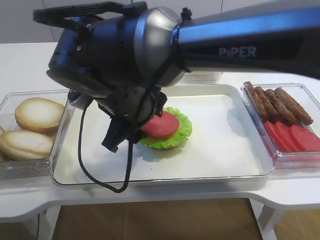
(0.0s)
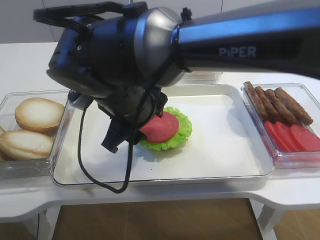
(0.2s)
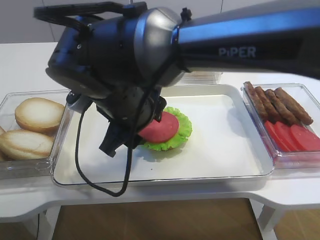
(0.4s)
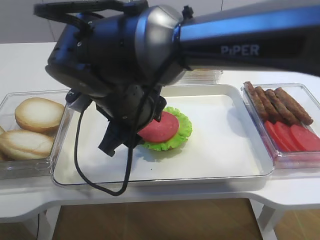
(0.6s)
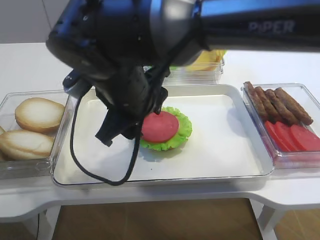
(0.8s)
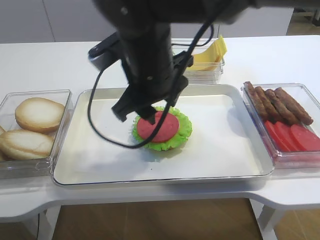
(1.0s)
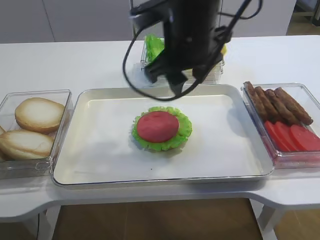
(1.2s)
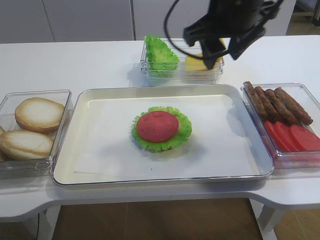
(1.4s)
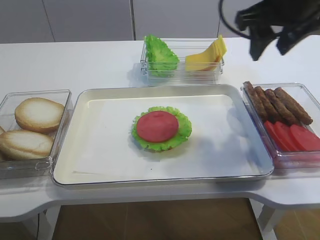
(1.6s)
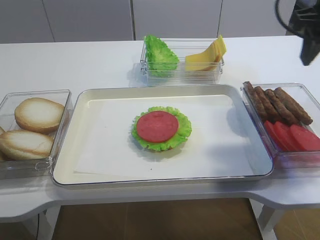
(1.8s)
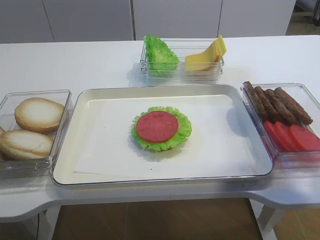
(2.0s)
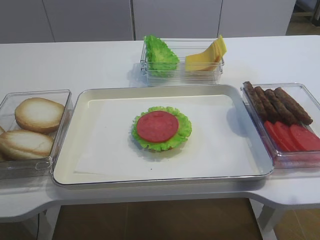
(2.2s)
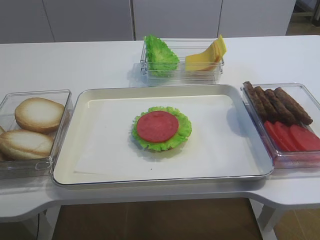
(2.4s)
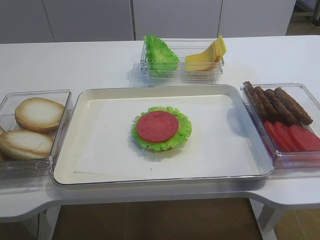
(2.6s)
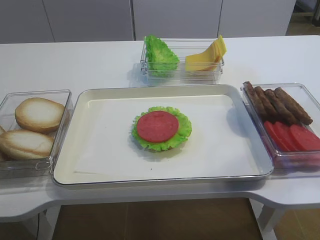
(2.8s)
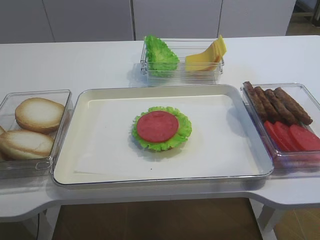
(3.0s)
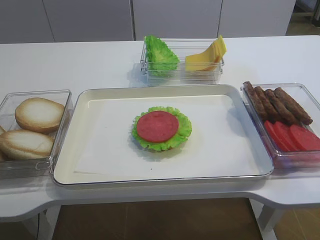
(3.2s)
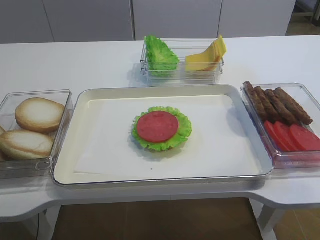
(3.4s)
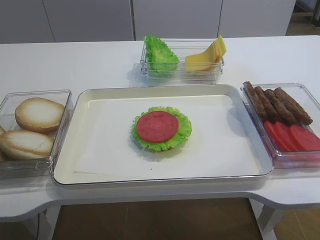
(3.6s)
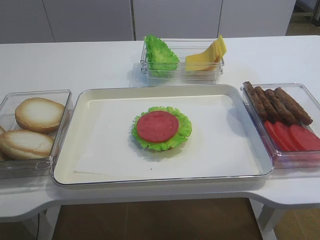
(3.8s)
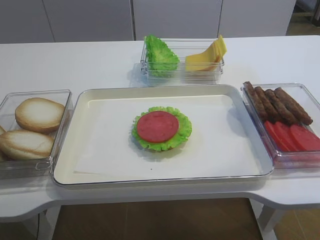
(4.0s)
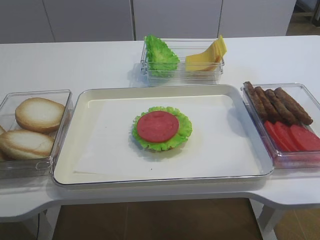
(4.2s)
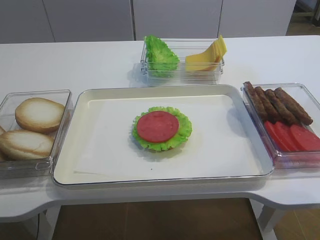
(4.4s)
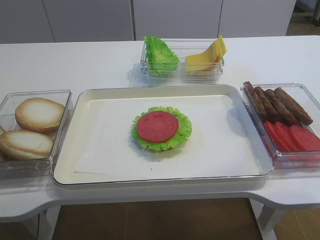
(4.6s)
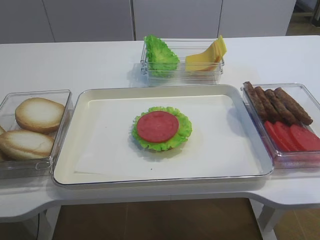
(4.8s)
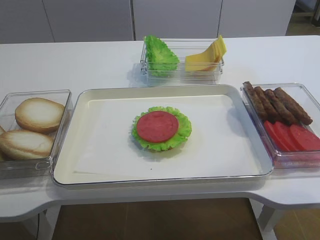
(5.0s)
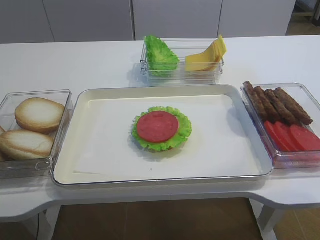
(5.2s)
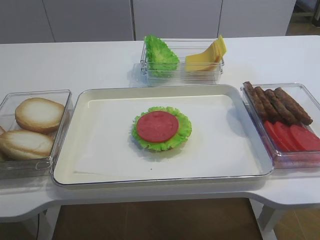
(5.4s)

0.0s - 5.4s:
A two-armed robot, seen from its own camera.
0.0s - 1.4s: The right gripper travels to the right, upward and forward by approximately 20 cm.
1.4s - 2.8s: The right gripper travels backward and to the right by roughly 30 cm.
2.8s - 4.0s: The right gripper heads downward and backward, covering about 15 cm.

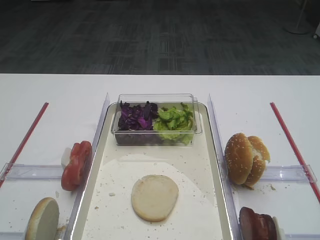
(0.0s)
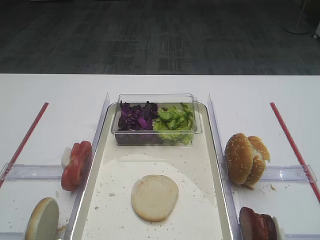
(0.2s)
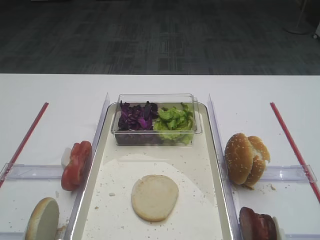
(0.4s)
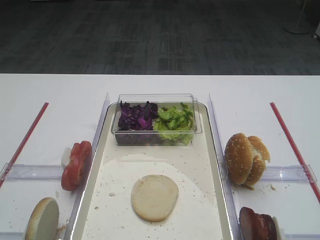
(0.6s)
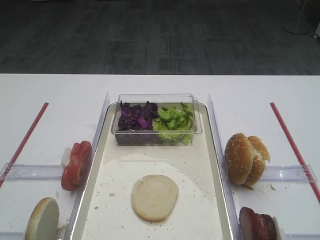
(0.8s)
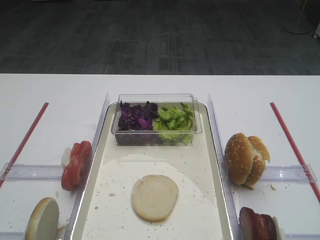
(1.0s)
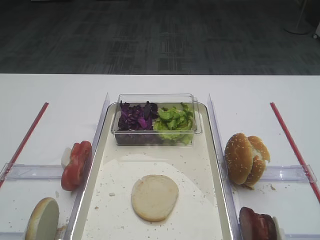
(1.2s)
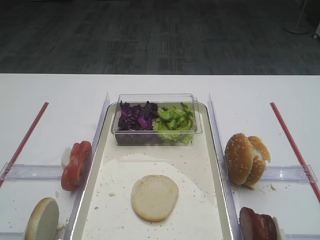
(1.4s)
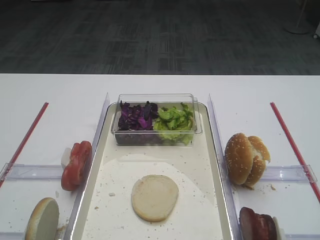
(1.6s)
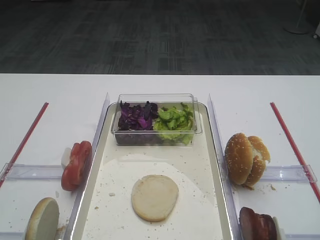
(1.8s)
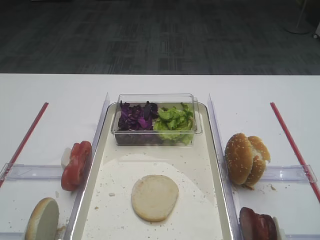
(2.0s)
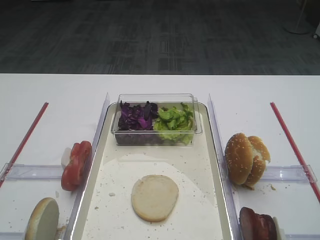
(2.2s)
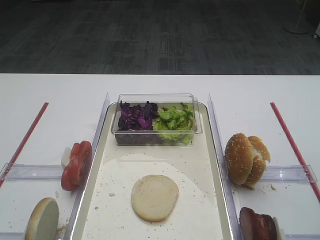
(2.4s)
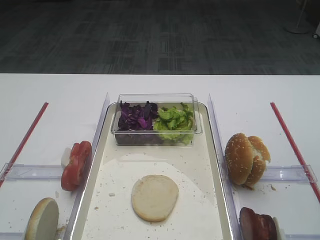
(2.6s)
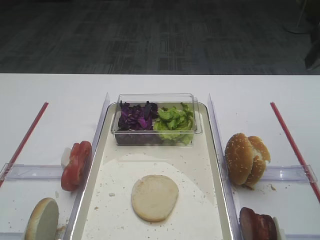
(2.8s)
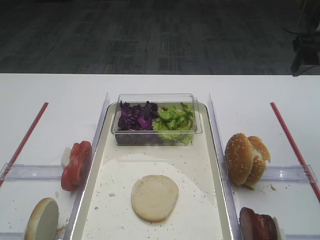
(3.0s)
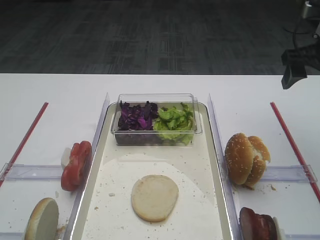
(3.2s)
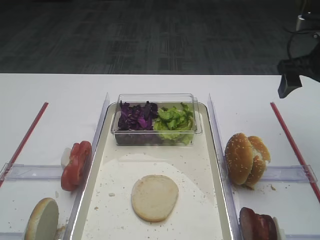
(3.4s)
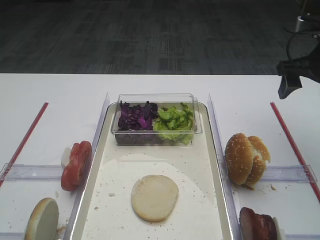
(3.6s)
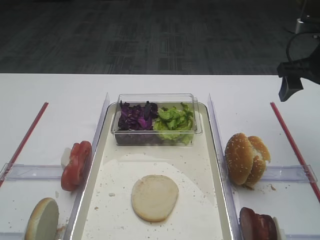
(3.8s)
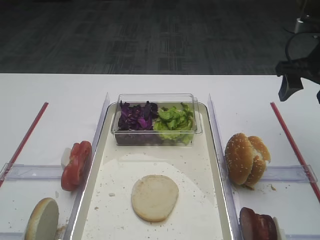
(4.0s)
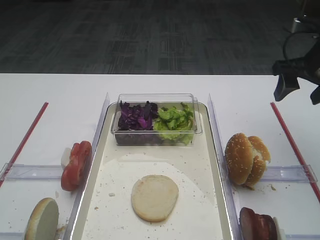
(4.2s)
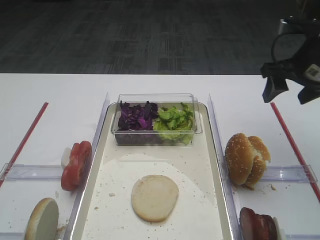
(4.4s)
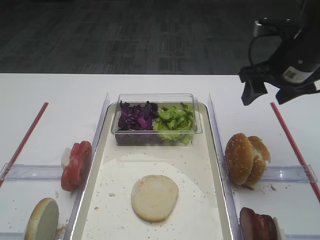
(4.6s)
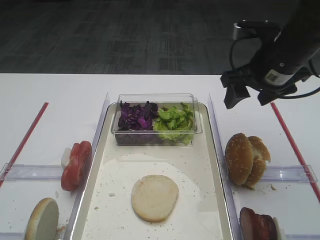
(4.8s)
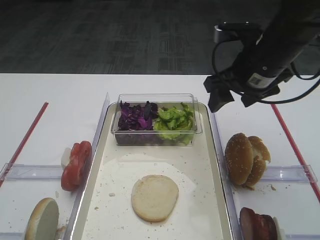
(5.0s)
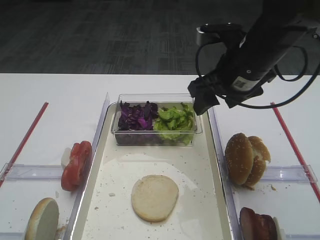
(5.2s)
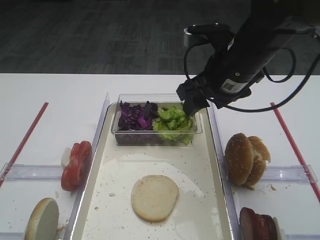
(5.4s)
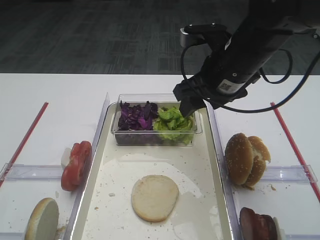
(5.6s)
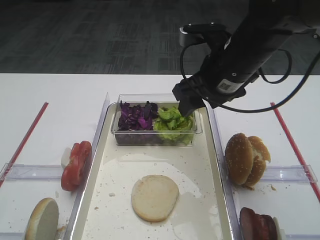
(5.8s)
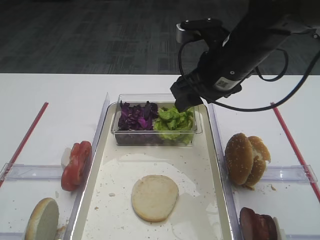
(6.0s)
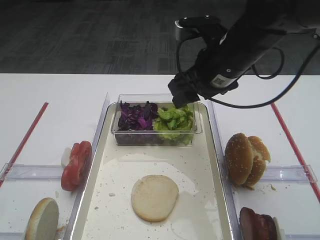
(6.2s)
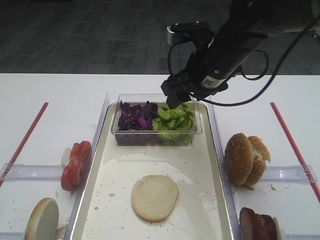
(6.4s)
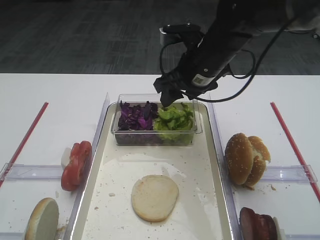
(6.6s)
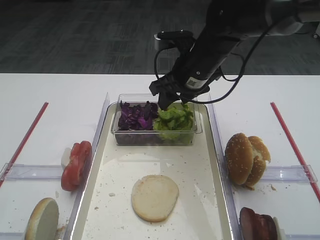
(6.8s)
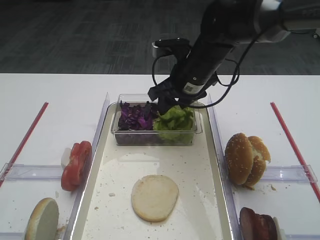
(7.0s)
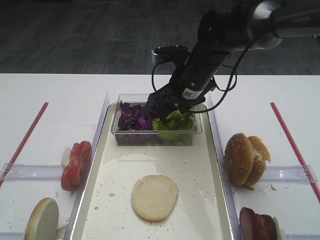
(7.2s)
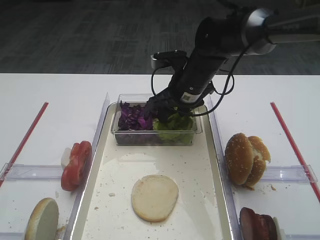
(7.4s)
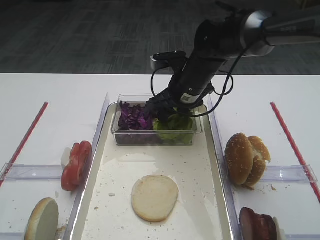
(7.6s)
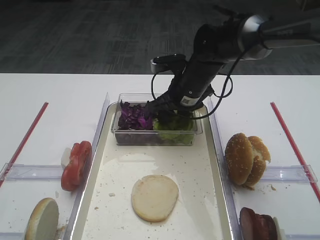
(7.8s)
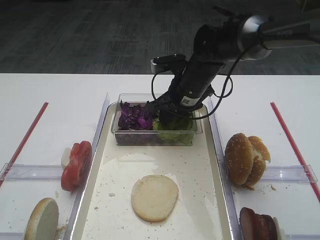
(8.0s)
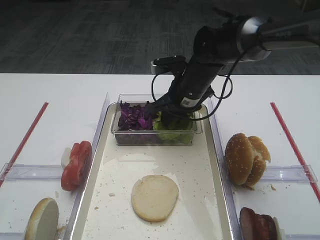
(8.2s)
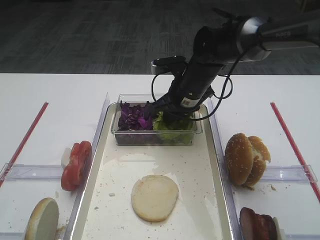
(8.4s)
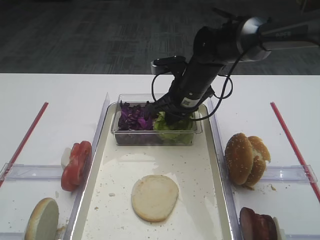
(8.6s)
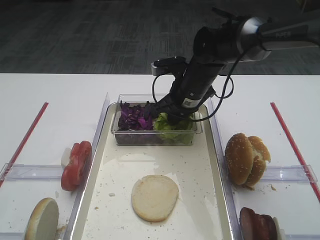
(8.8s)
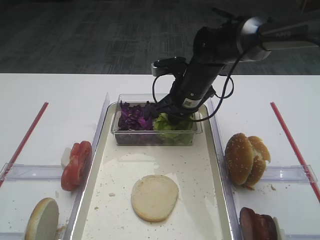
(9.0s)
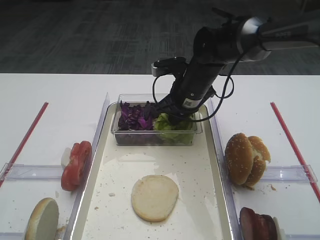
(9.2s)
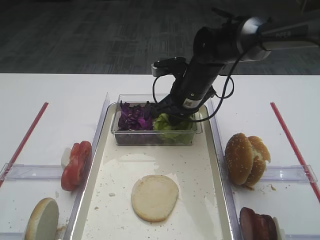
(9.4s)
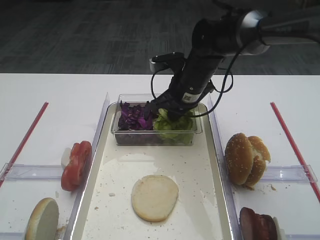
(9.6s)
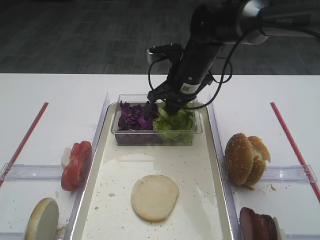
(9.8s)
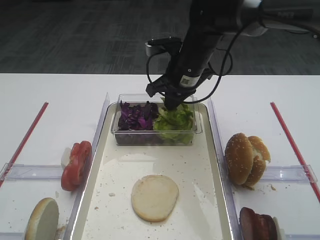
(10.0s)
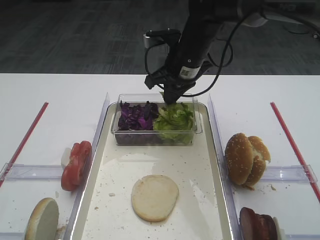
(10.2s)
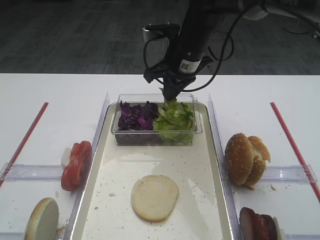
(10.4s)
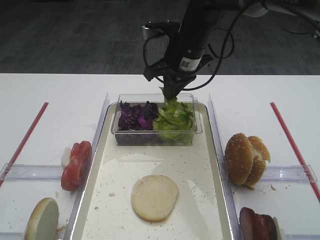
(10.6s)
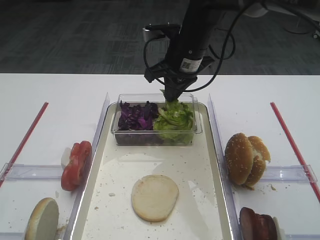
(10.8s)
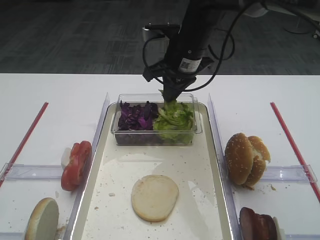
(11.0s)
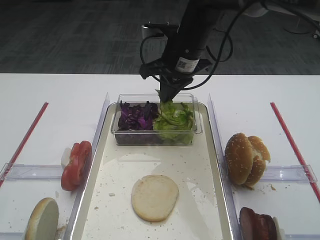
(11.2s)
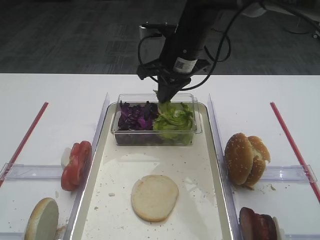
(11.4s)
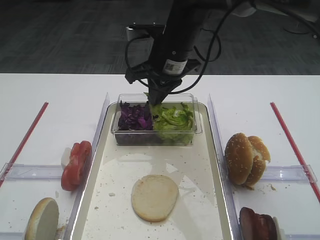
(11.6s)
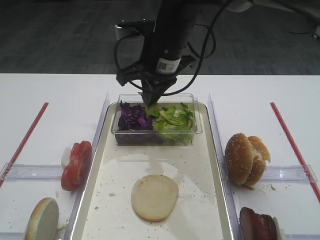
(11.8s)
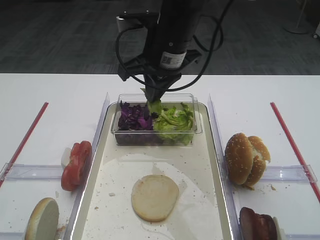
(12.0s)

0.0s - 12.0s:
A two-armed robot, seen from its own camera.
Step, 0.0s - 11.0s: Pick up the lettuce leaf with the right gripper.
1.6s - 3.0s: The right gripper goes approximately 30 cm forward.
3.0s - 4.4s: The right gripper goes roughly 5 cm downward.
4.4s - 6.0s: The right gripper travels to the left by approximately 15 cm.
6.0s - 7.6s: The right gripper heads forward and downward, covering approximately 10 cm.
7.6s - 9.0s: The right gripper closes.
9.0s - 10.4s: The right gripper goes about 10 cm upward.
10.4s - 12.0s: The right gripper travels backward by some 5 cm.

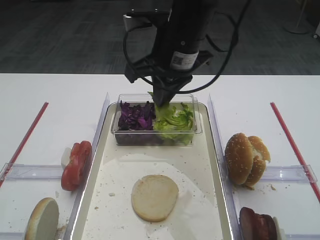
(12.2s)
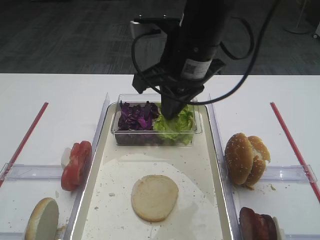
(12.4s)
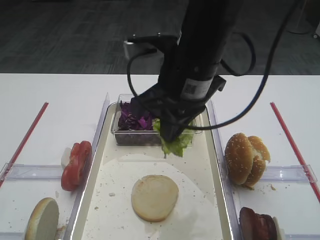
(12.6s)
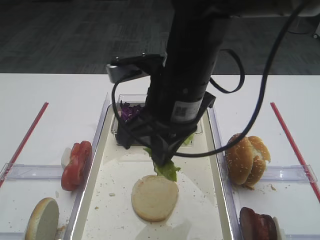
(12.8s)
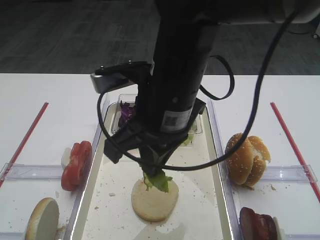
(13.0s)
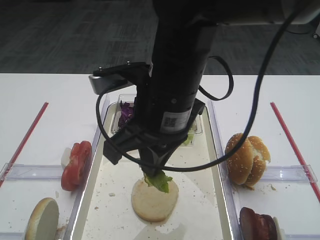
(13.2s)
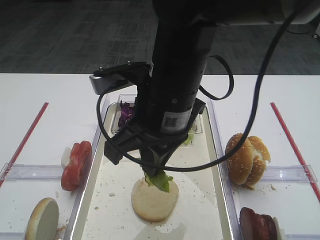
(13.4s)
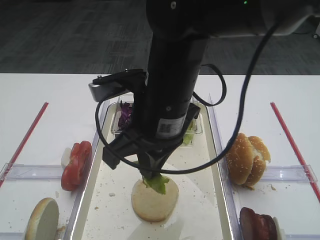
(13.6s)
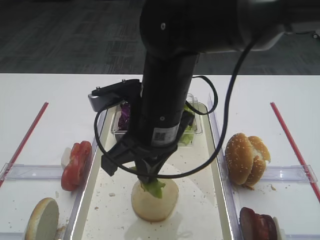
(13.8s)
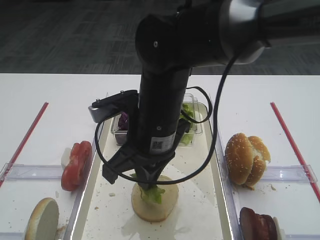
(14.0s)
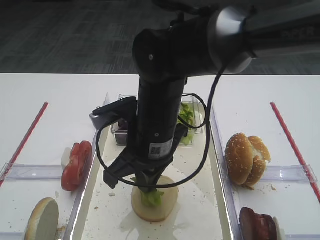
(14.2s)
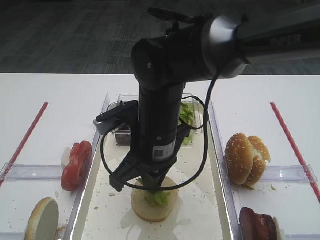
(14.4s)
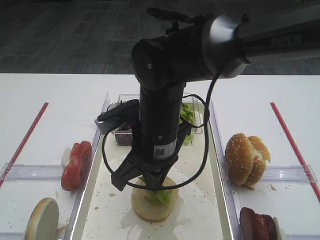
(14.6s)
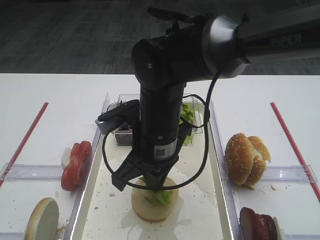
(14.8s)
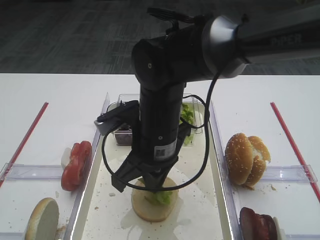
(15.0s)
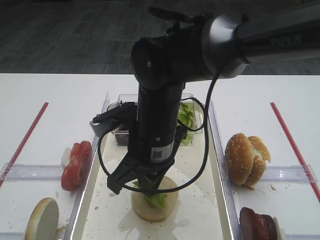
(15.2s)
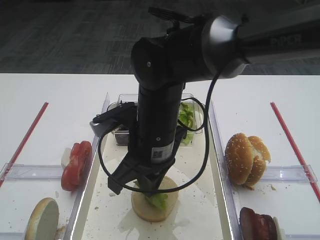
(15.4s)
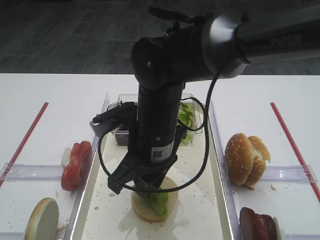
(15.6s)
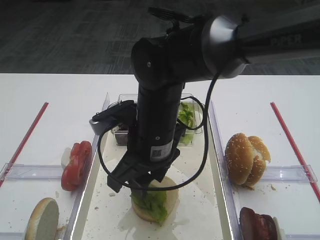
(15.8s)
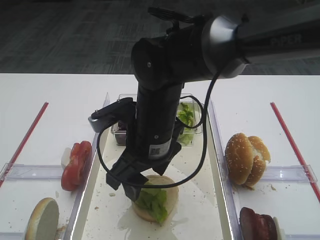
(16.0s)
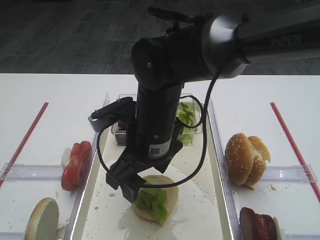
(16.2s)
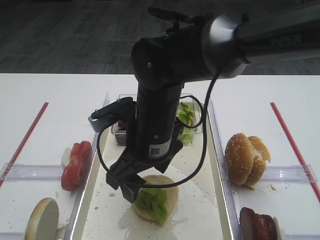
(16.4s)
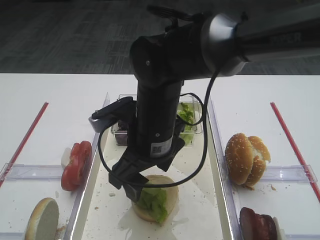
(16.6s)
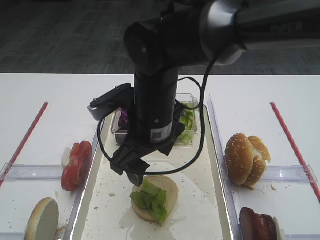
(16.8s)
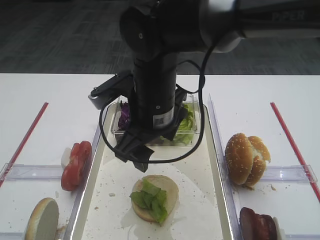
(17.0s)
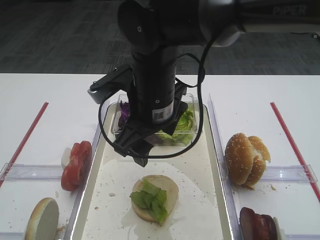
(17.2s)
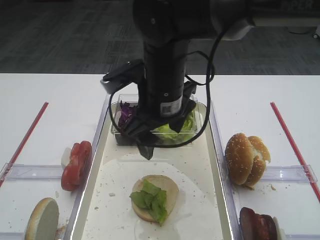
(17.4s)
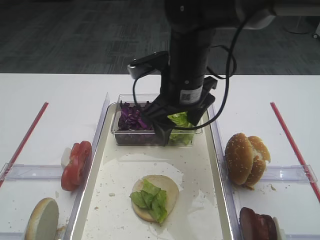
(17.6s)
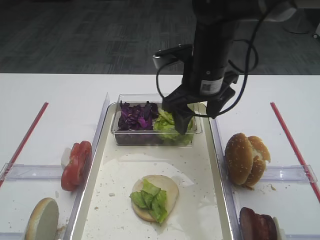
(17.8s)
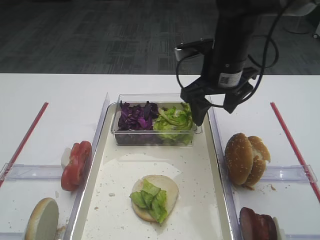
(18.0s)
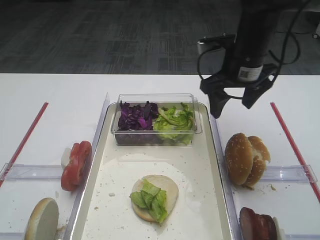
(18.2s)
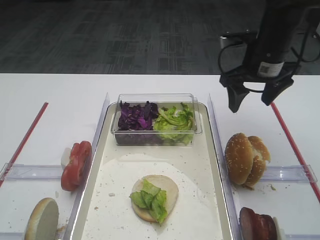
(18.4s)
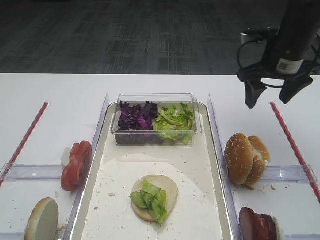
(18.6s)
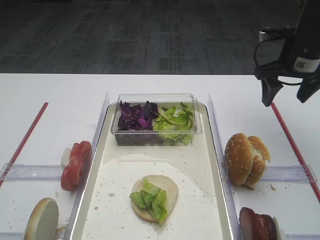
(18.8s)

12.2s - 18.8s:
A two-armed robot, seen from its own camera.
Step, 12.2s - 16.6s: Place the lettuce leaf on the bread slice with the right gripper.
12.2s - 13.8s: The right gripper travels backward and downward by roughly 10 cm.
13.8s - 15.4s: There are only small adjustments of the grippers.
15.4s - 17.2s: The right gripper changes place by some 5 cm, and opens up.
17.2s - 18.8s: The right gripper goes roughly 30 cm to the right and forward.
